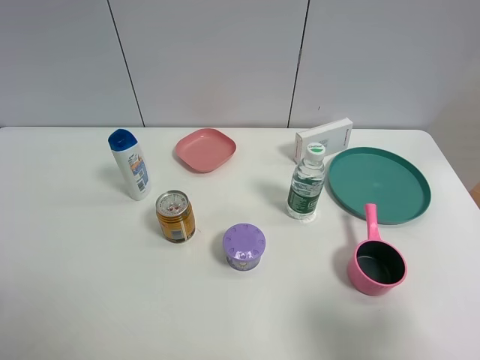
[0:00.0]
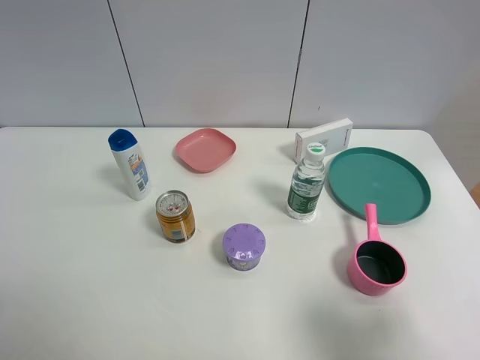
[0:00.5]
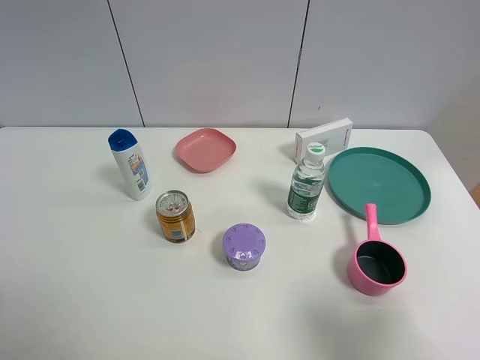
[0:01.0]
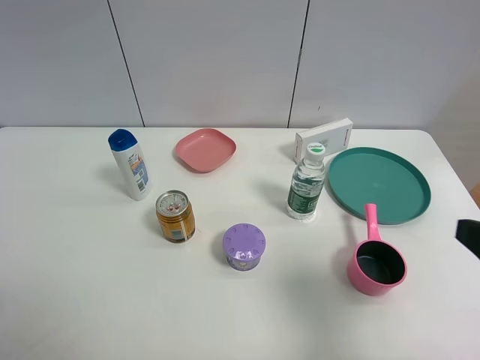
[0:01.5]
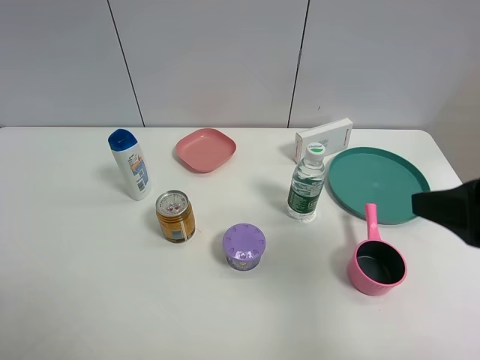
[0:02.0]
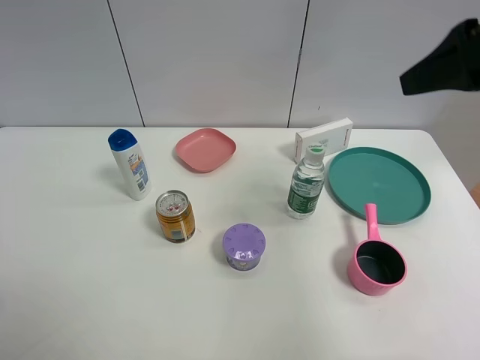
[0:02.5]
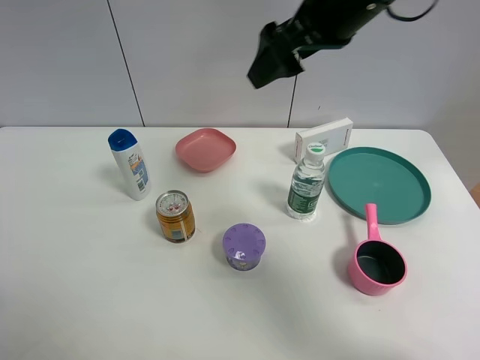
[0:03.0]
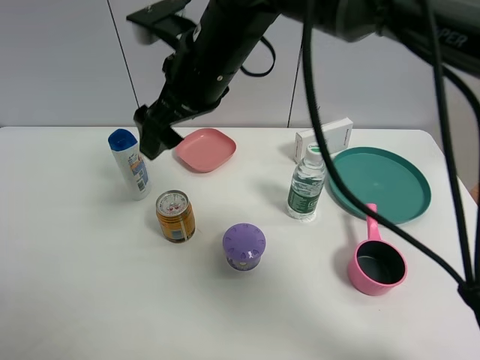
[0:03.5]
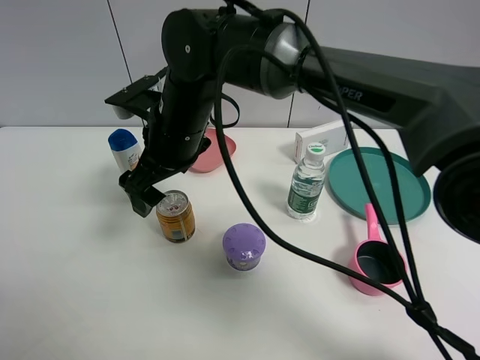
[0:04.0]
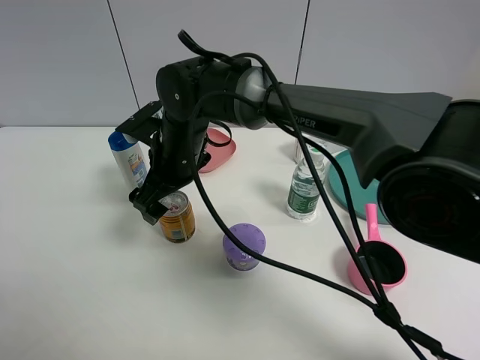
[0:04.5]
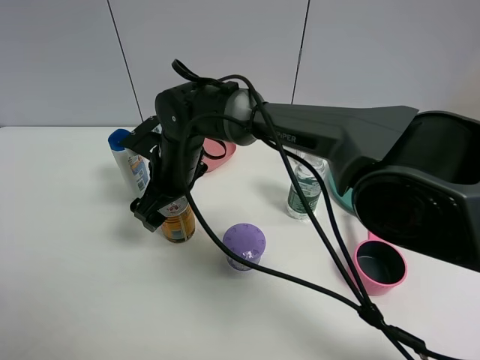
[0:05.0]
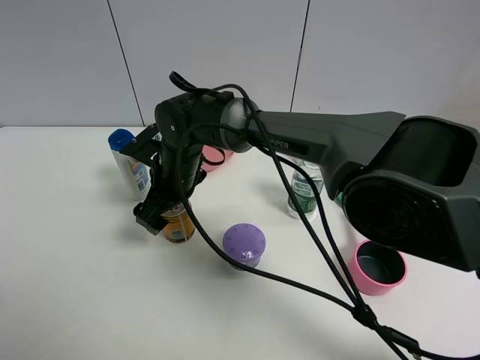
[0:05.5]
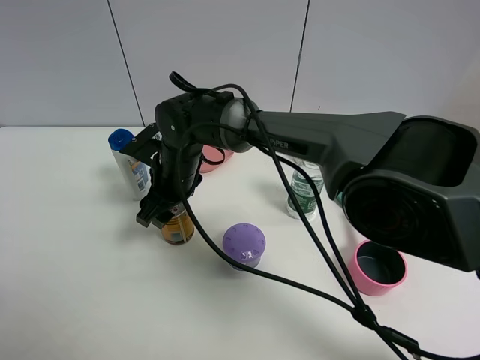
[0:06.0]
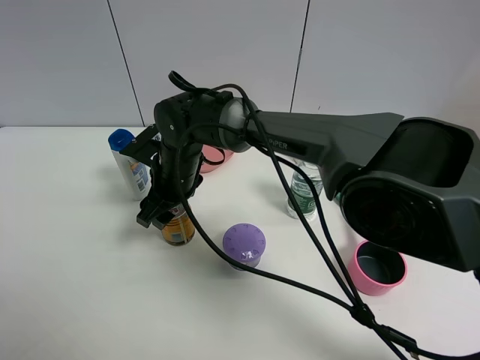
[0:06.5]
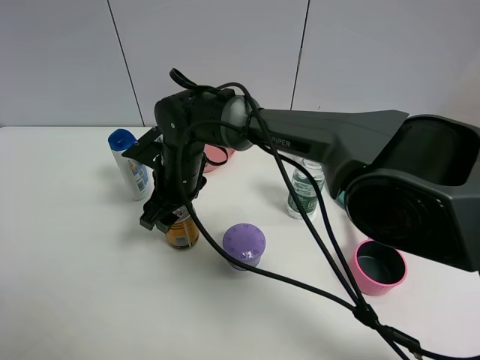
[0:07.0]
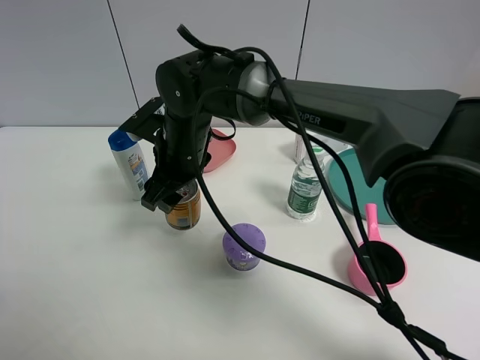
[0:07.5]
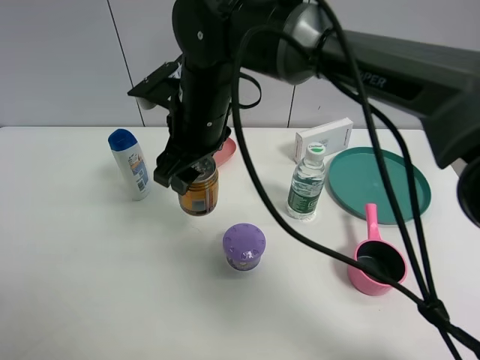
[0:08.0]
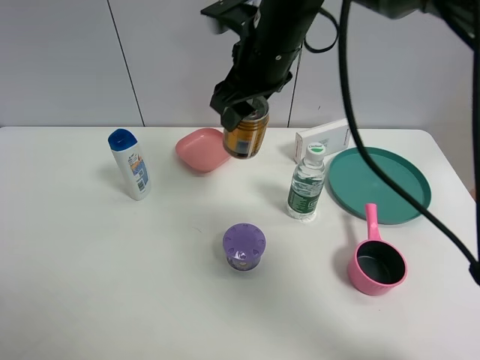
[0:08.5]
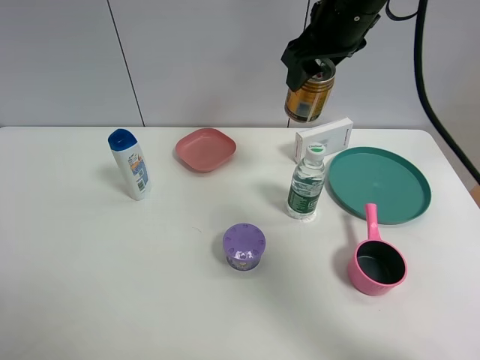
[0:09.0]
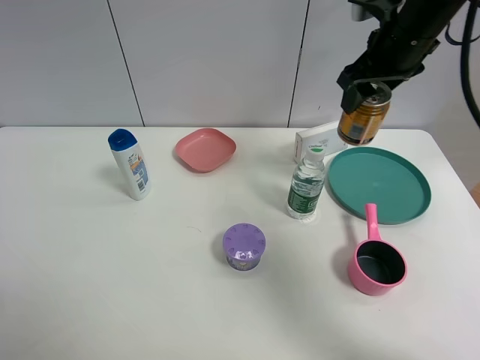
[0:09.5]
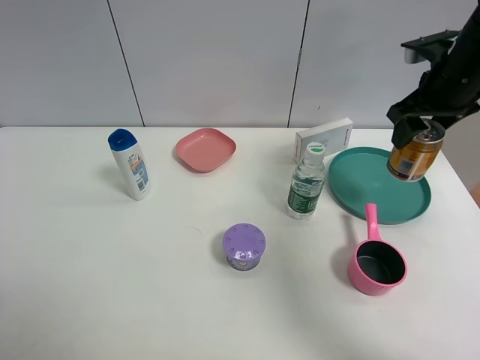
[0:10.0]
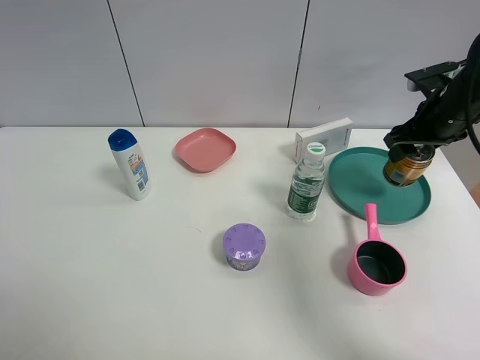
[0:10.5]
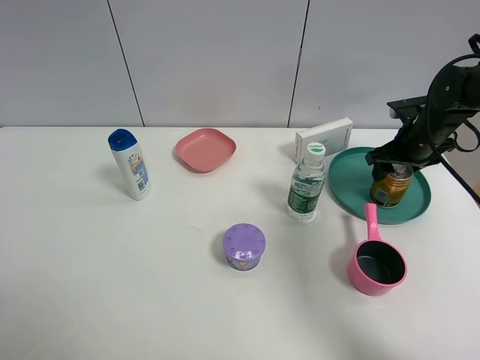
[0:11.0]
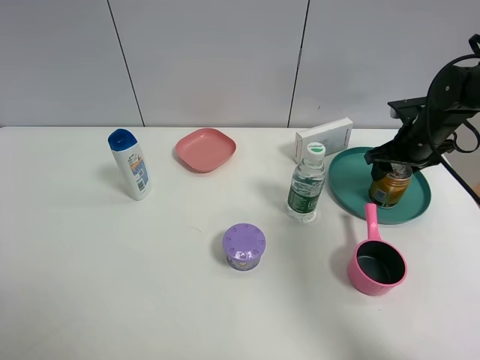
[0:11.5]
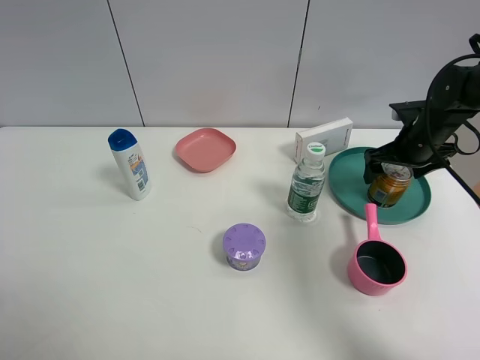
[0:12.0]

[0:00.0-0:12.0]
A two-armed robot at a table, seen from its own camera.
Task of the whole recording: the gripper move the object.
Step, 0:00.0 to 0:05.5: Grasp the red bull with the right gripper.
Step, 0:06.0 to 0:11.5: Place the red bull into the green plate with the right gripper.
0:00.0 to 0:02.0: The right gripper moves forward and upward, approximately 15 cm.
0:02.0 to 0:04.0: The right gripper is displaced to the left and forward by about 40 cm.
0:04.0 to 0:06.0: The right gripper is displaced downward by approximately 10 cm, and closes.
0:06.0 to 0:08.0: The right gripper shifts about 15 cm upward and to the right.
0:08.0 to 0:10.0: The right gripper is displaced to the right by approximately 35 cm.
0:10.0 to 0:12.0: The right gripper moves downward, some 10 cm, and opens up.

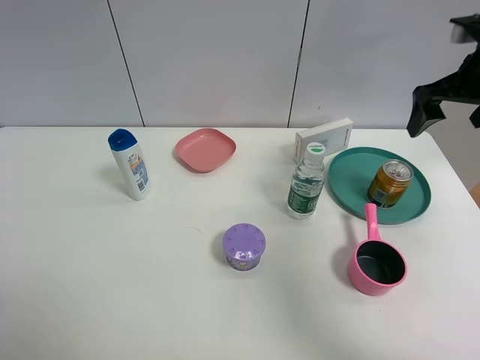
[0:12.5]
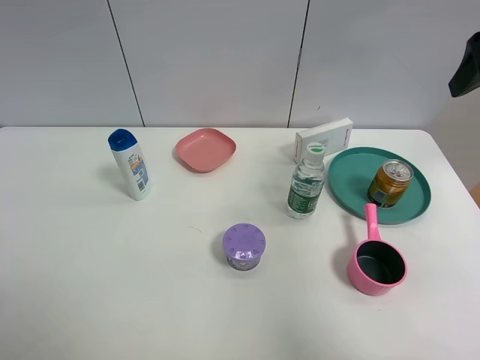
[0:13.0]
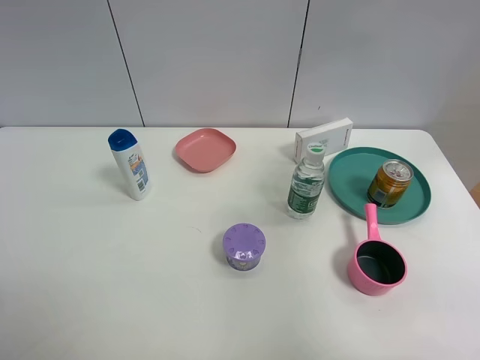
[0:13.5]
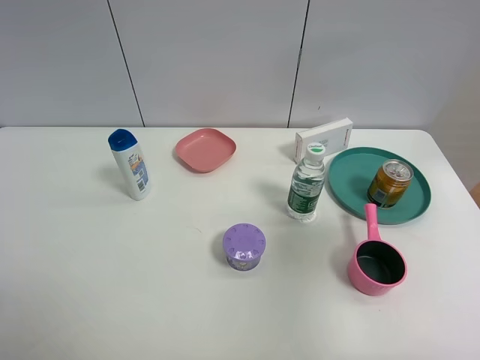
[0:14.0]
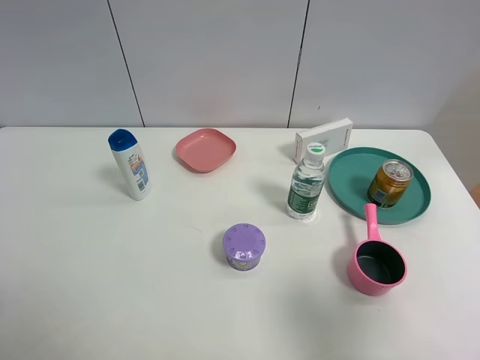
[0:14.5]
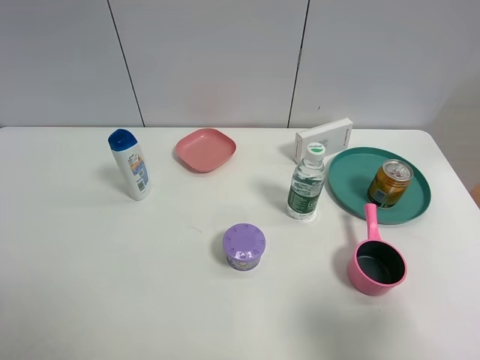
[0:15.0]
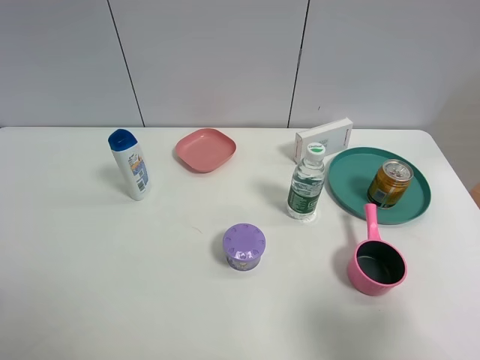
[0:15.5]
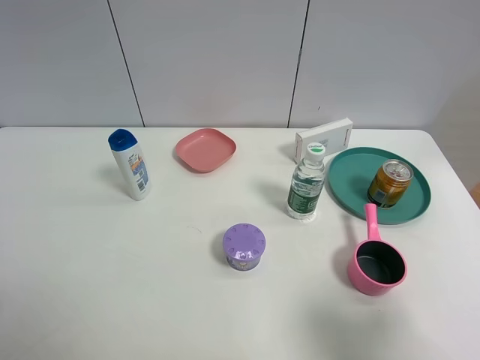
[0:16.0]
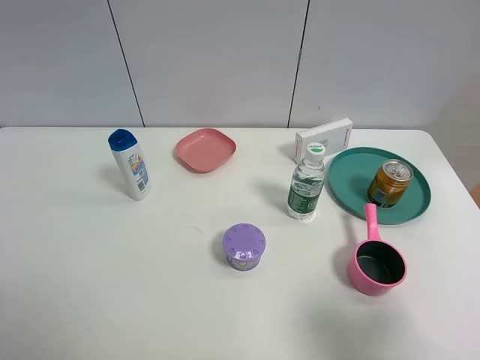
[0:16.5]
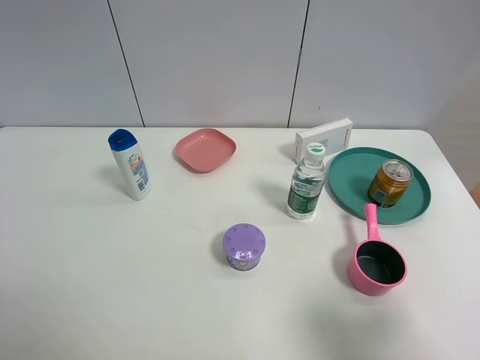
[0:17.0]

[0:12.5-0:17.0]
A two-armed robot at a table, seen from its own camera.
Task of the whole recording: the gripper move the object.
0:12.5 to 0:14.5: The right gripper shifts some 35 cm backward.
0:14.5 to 0:17.0: There are only small adjustments of the grippers.

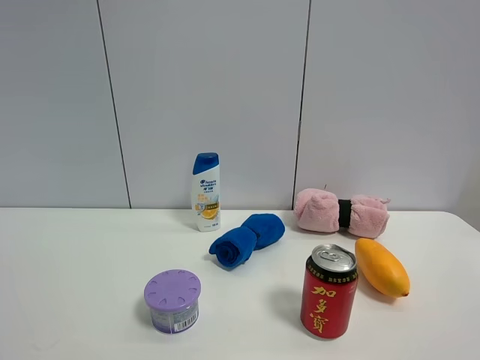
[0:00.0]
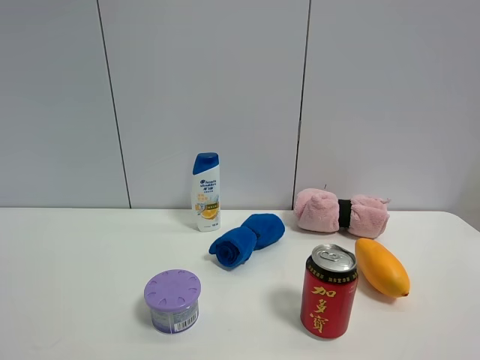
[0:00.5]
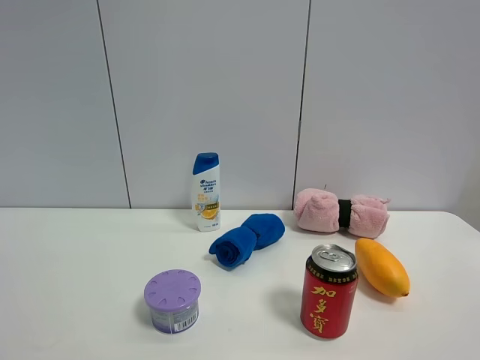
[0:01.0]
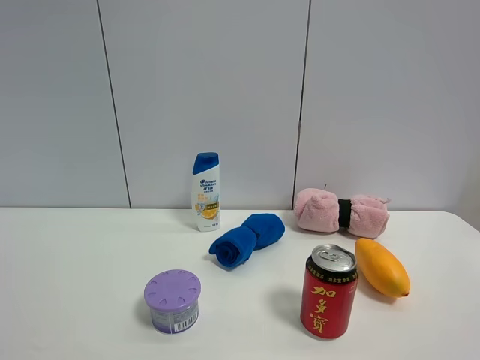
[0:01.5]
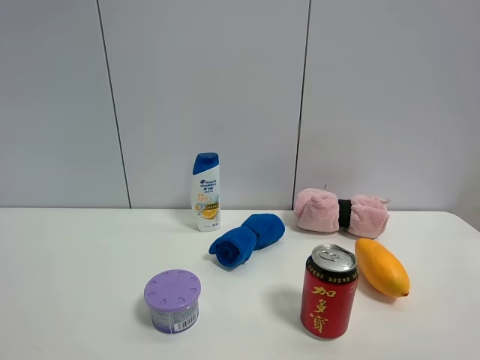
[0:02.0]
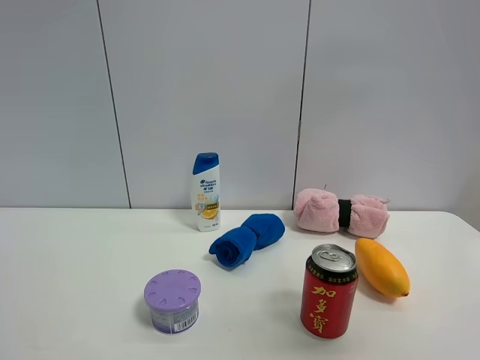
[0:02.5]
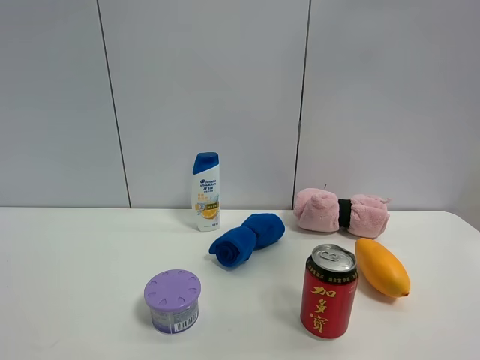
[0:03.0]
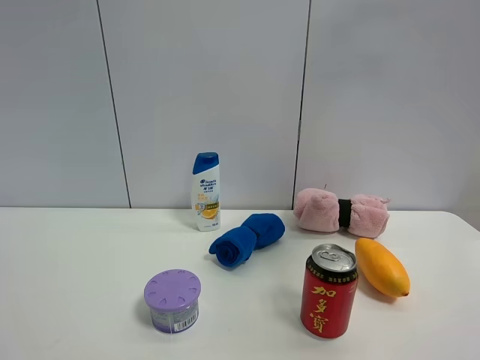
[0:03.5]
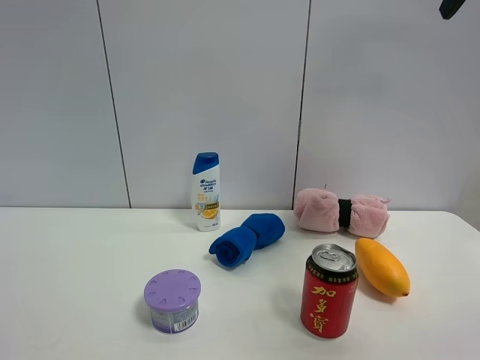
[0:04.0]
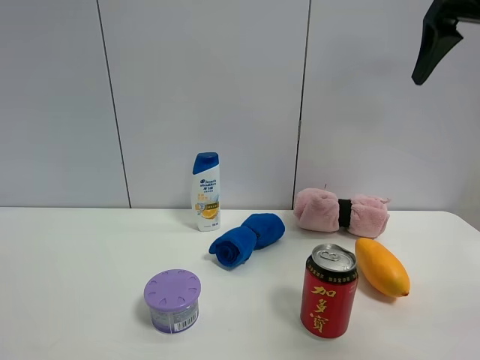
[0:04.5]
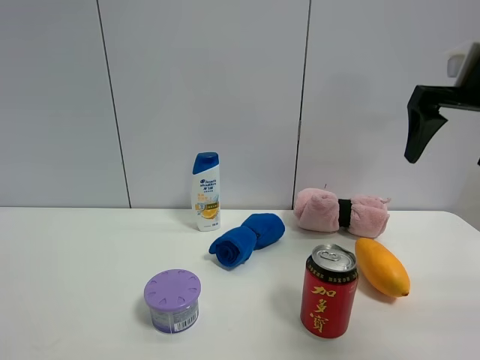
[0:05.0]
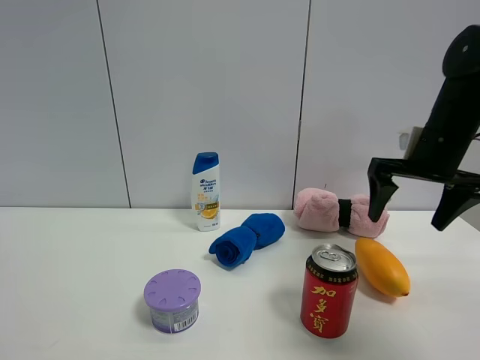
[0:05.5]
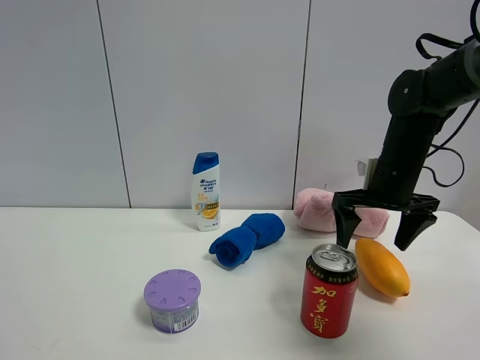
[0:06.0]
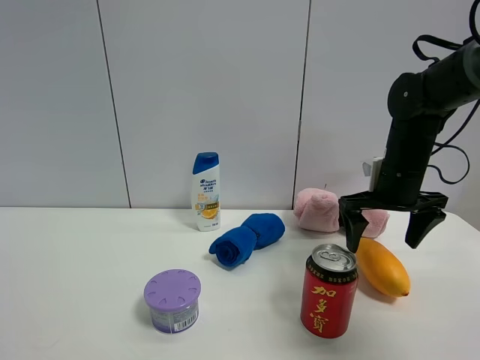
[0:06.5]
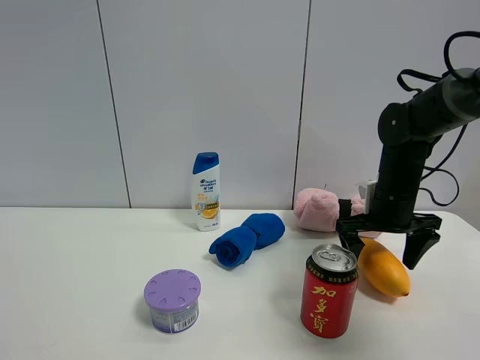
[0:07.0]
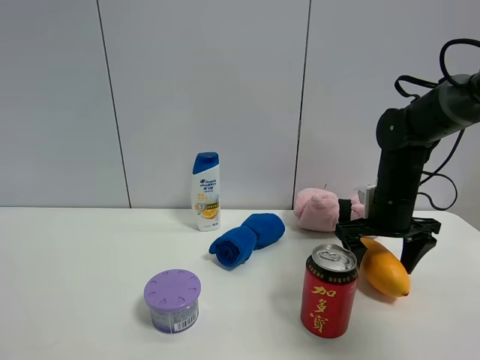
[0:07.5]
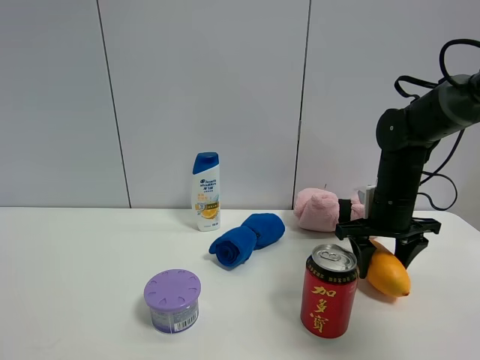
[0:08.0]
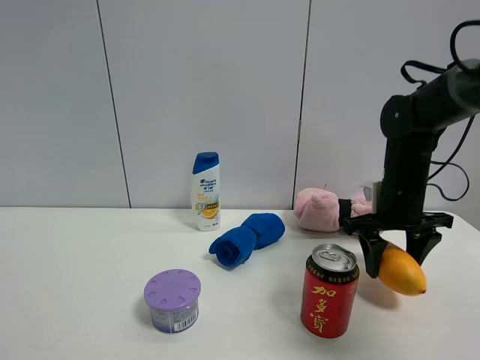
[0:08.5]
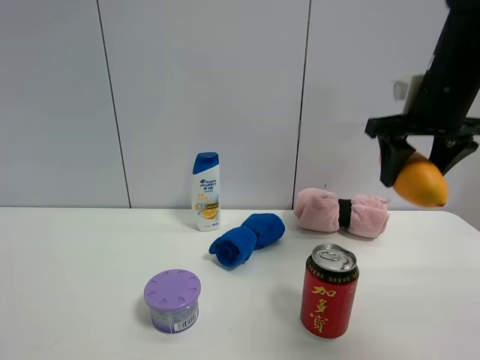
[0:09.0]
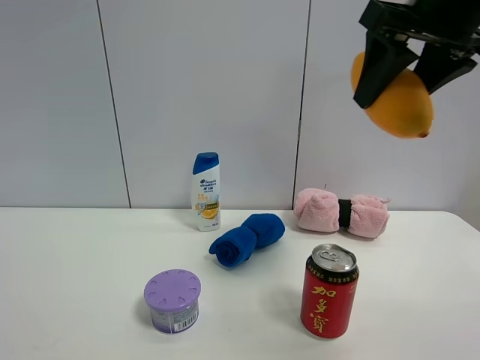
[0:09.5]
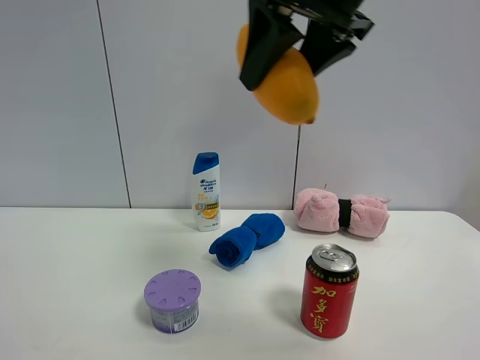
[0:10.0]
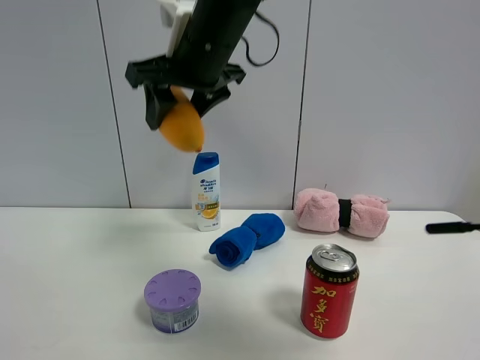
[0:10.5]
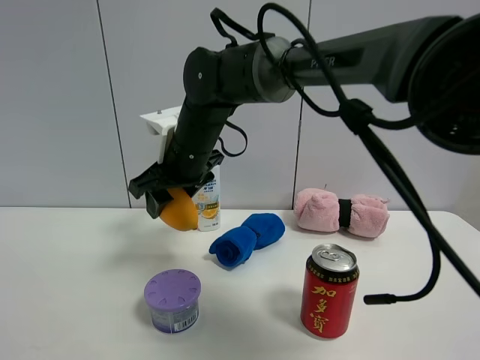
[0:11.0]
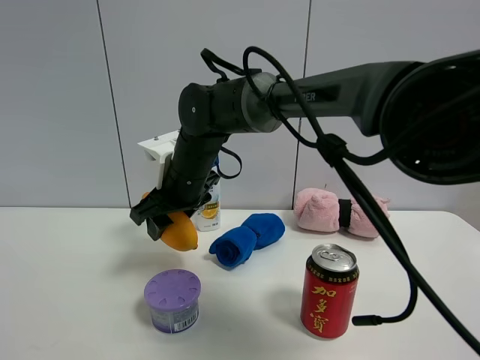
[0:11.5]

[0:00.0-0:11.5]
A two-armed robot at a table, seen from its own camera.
Task of the whole recording: the gripper move the object.
Step, 0:00.0 to 0:07.5: Grasp the mango with the right gripper.
0:02.0 to 0:04.0: The right gripper heads forward, covering approximately 35 cm.
0:04.0 to 0:06.0: The right gripper goes some 30 cm downward.
0:06.0 to 0:07.5: The right gripper closes up.
0:07.5 to 0:09.5: The right gripper goes some 30 cm upward and backward, and closes its fingers.
0:09.5 to 0:11.5: The right gripper heads to the left, downward and forward, covering some 35 cm.
